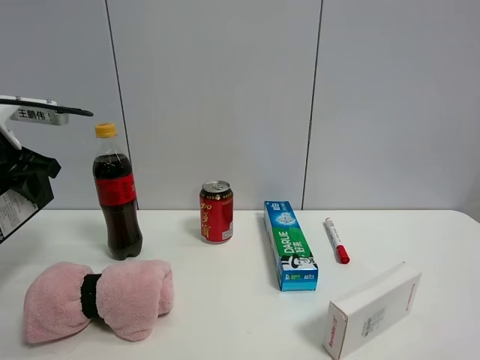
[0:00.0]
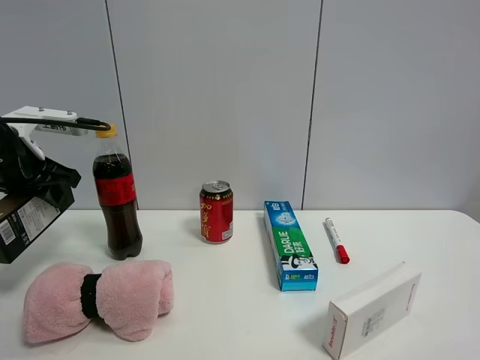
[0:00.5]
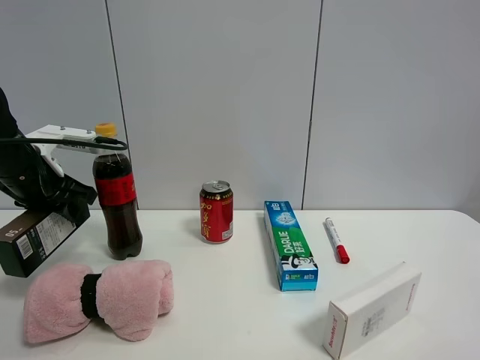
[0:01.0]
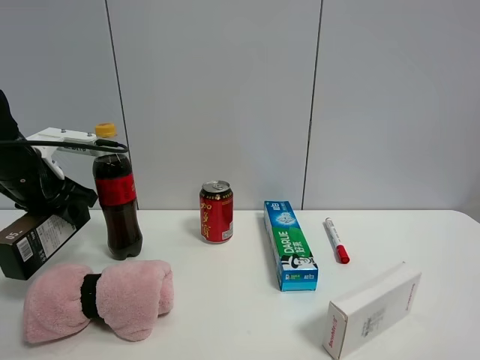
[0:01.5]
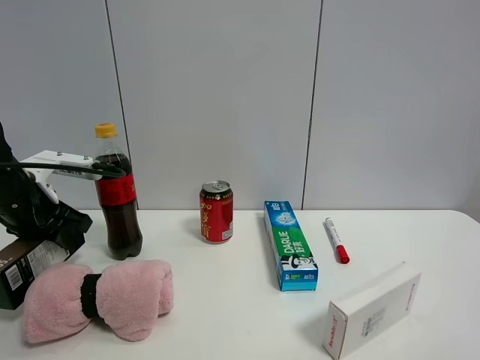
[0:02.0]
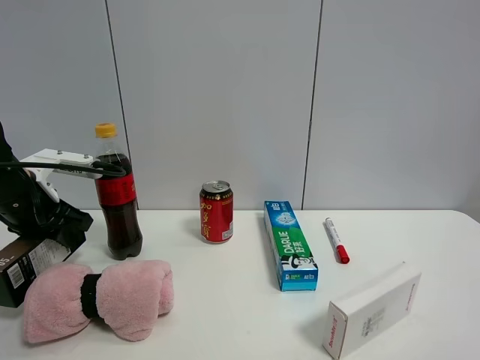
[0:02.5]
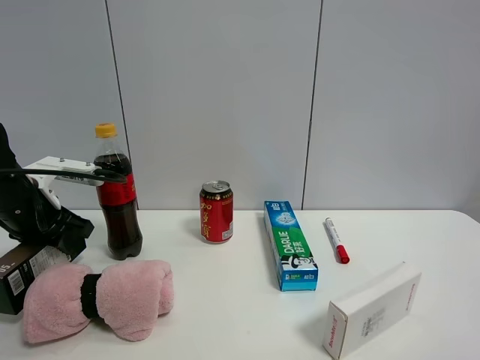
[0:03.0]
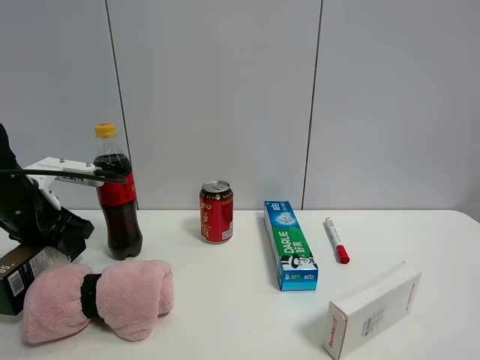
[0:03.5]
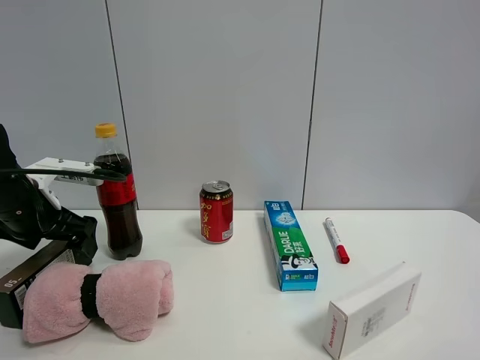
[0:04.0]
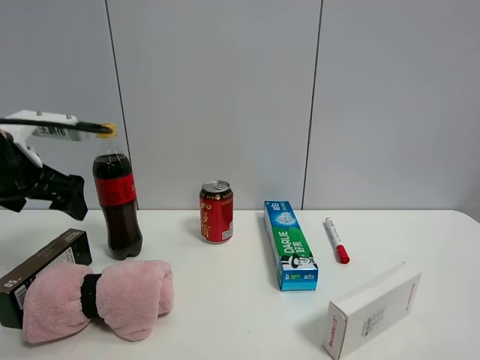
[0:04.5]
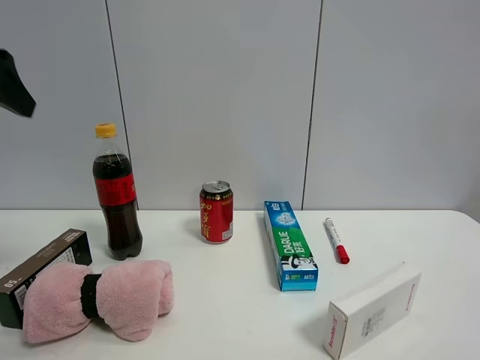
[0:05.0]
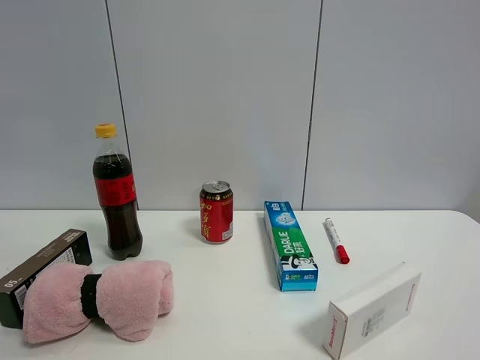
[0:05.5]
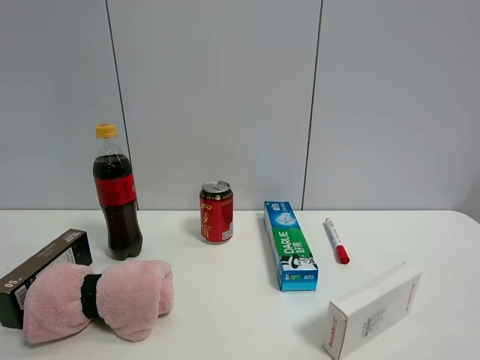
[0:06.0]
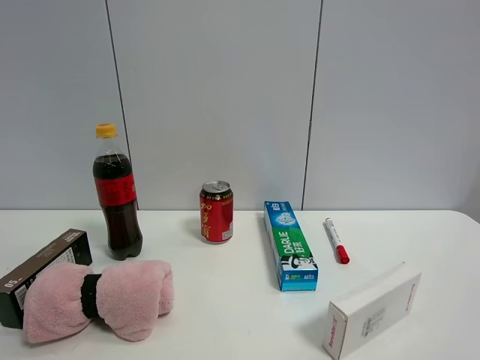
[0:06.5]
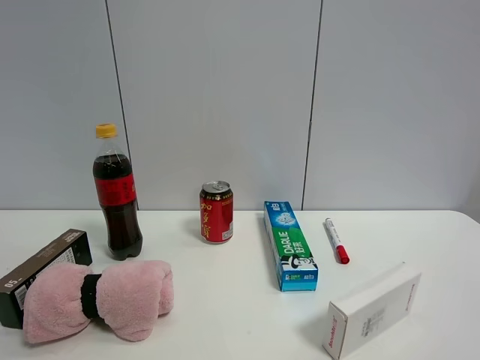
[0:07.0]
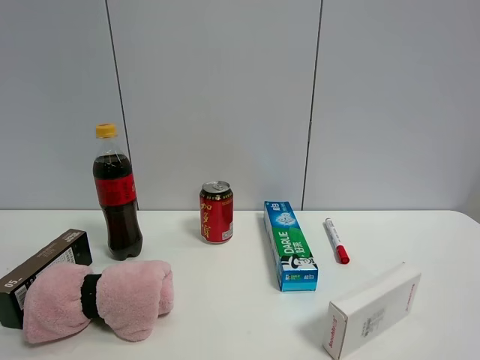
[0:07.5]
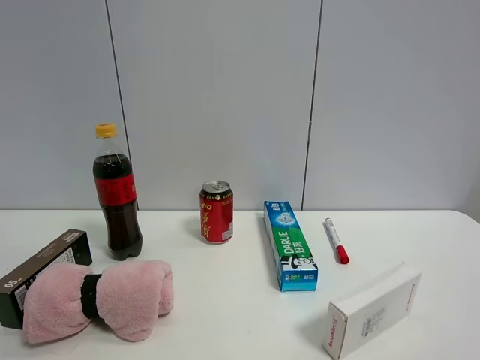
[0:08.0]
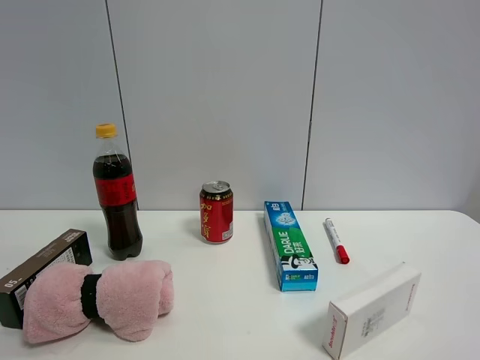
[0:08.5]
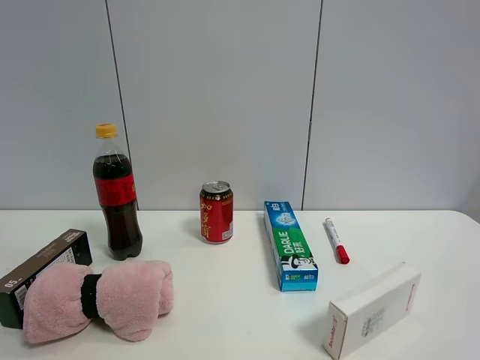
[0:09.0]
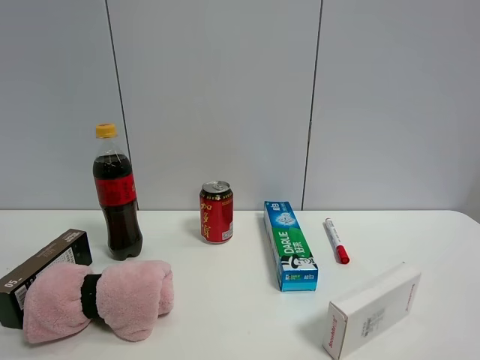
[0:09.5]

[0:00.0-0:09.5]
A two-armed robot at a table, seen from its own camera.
Task of the whole recording: the gripper move the object.
Step, 0:00.0 to 0:03.5: Place the brown box on the table with the left gripper.
0:00.0 to 0:02.0: The left gripper is displaced downward by roughly 5 cm.
0:02.0 to 0:04.0: The left gripper opens its fingers.
0:04.0 to 0:05.5: The left gripper shifts roughly 35 cm upward and backward.

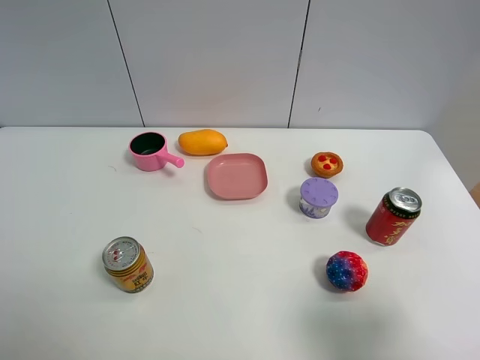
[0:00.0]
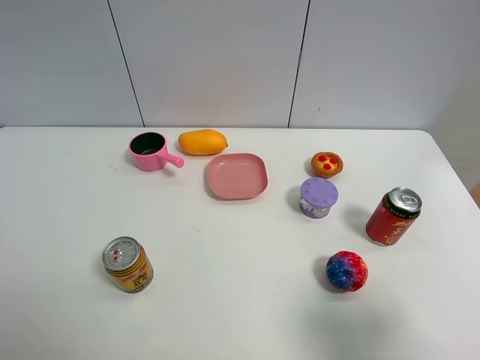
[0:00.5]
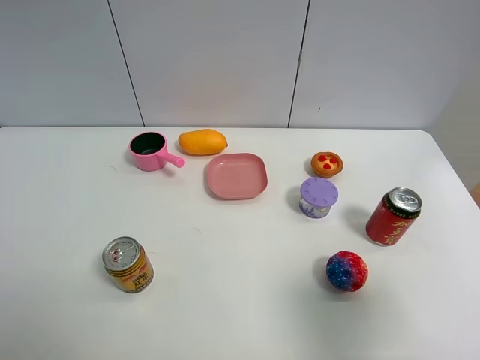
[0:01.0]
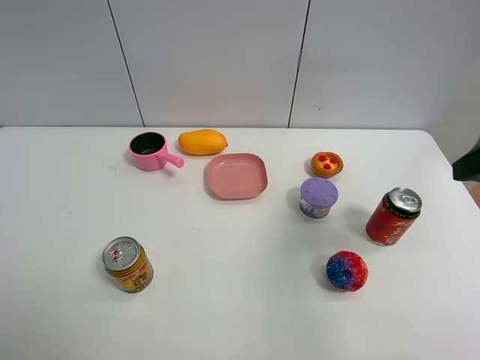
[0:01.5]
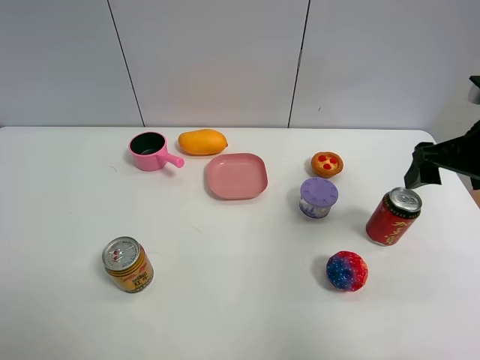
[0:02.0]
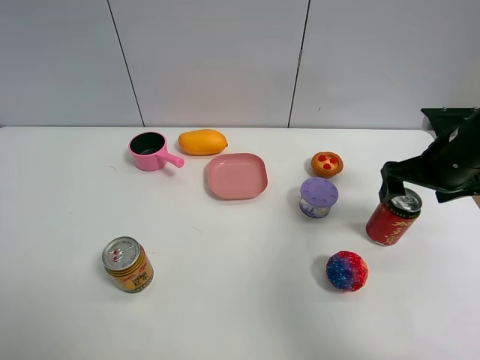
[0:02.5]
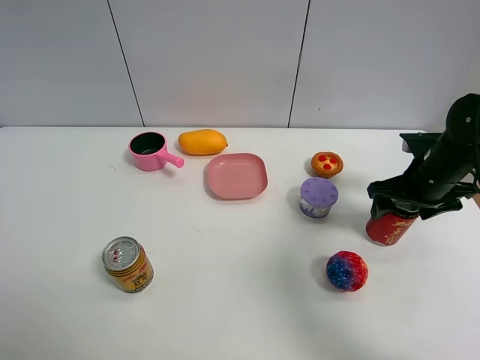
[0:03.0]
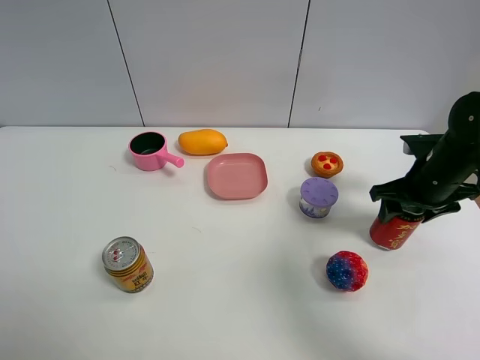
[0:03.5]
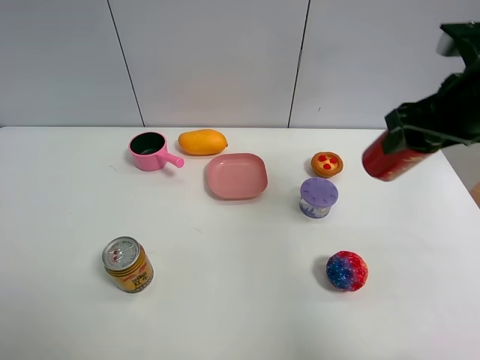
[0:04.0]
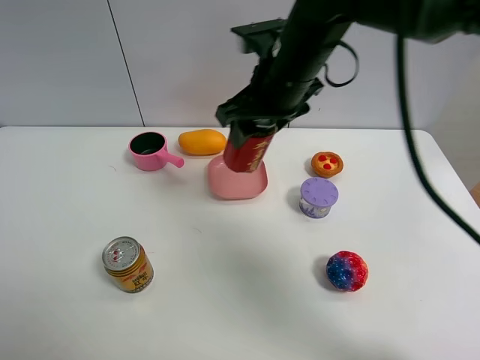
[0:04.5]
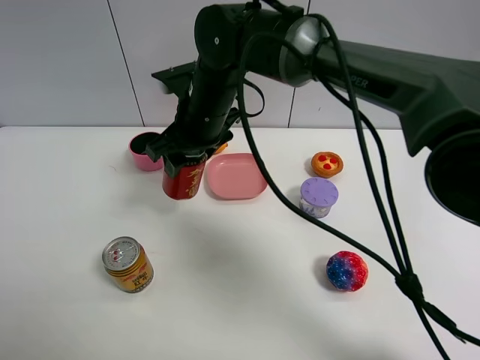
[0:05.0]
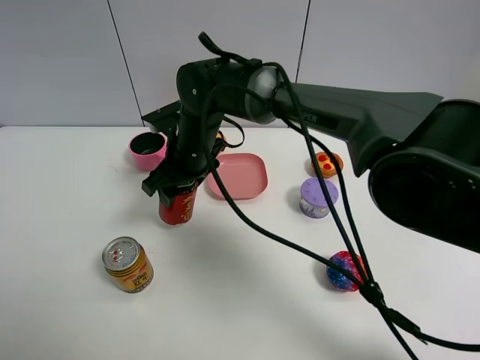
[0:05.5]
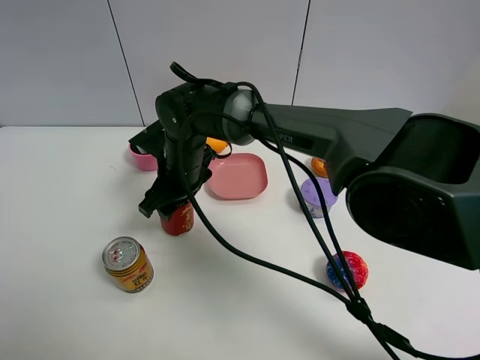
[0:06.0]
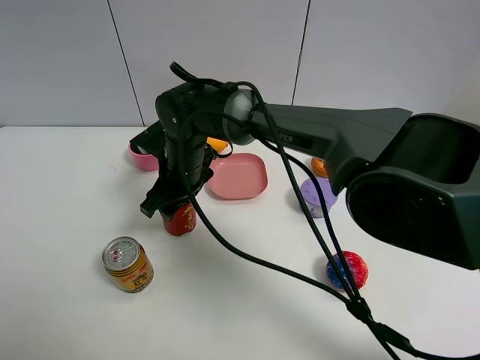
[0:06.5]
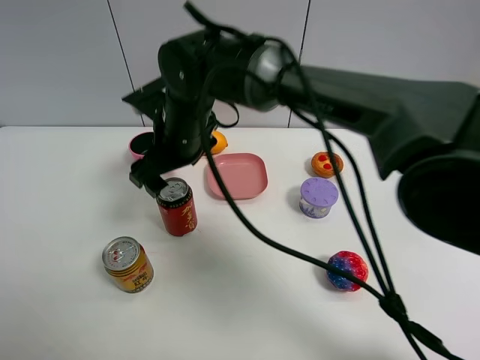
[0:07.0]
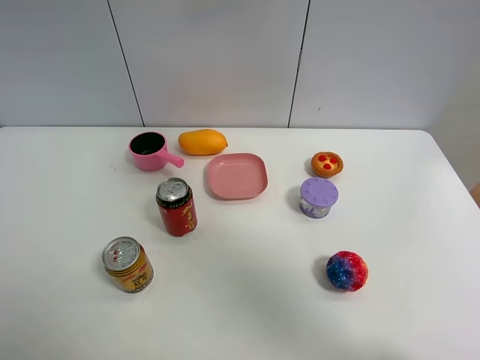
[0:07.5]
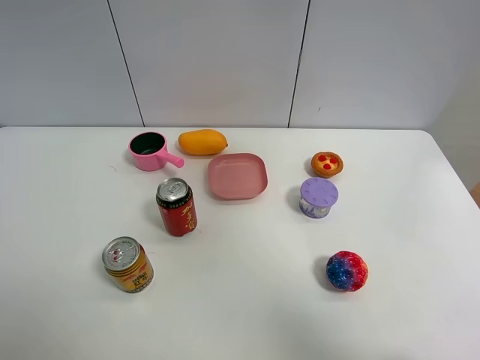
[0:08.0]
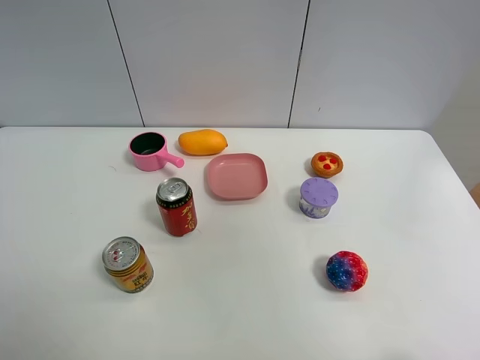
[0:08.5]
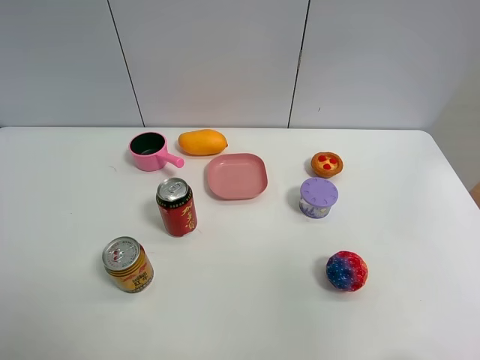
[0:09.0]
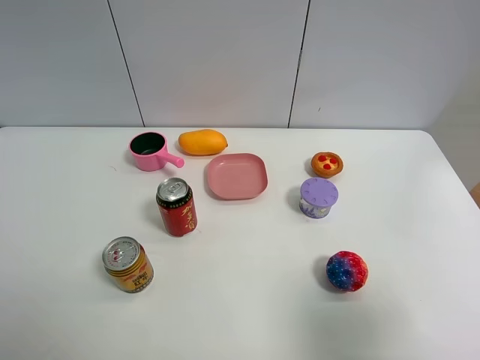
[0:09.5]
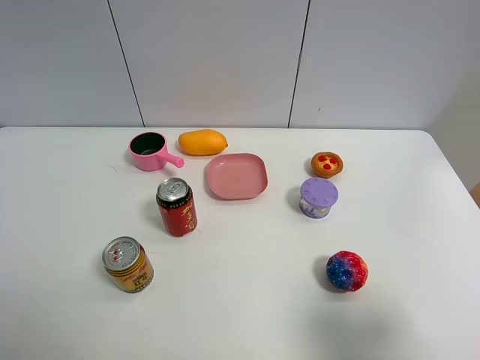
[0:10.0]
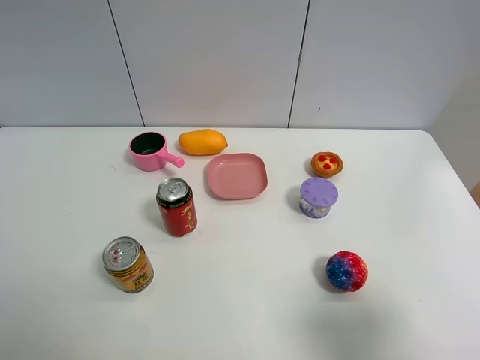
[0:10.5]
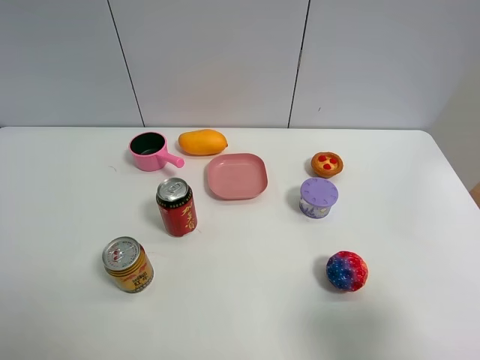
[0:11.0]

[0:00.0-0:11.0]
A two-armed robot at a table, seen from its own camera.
Task of the whole recording: the gripper move the object.
Step, 0:00.0 to 0:03.0: Grasp the Jia Duo Bao with the right gripper.
Step, 0:03.5 to 0:06.5: Place the Jia Duo Bao on the table with the right gripper.
0:00.0 to 0:02.0: The right gripper moves forward, approximately 25 cm.
0:02.0 to 0:03.5: The right gripper moves downward and forward, about 10 cm, and closes its fingers.
0:03.5 to 0:05.5: The right gripper is displaced to the left by some 35 cm.
0:05.5 to 0:07.5: The right gripper goes roughly 30 cm upward and to the right, and opens up.
0:07.5 to 0:09.0: The right gripper heads backward and to the right, covering approximately 40 cm.
0:09.0 to 0:11.0: The right gripper goes some 25 cm downward.

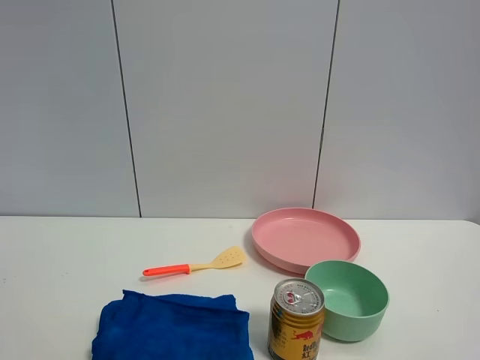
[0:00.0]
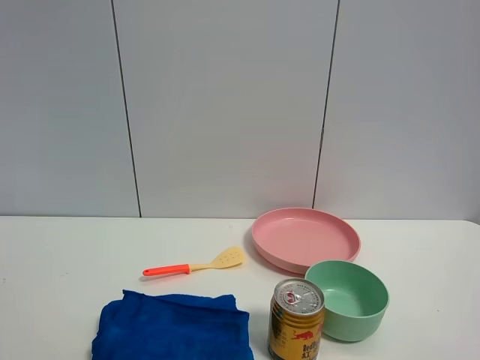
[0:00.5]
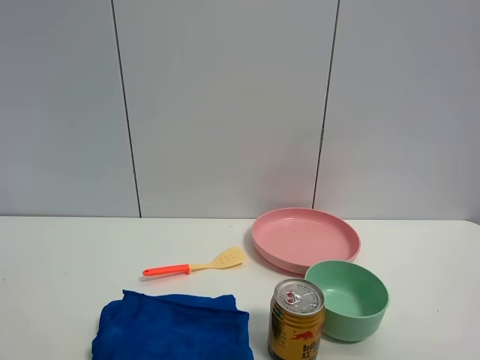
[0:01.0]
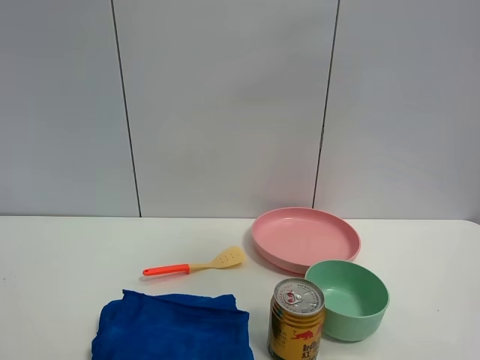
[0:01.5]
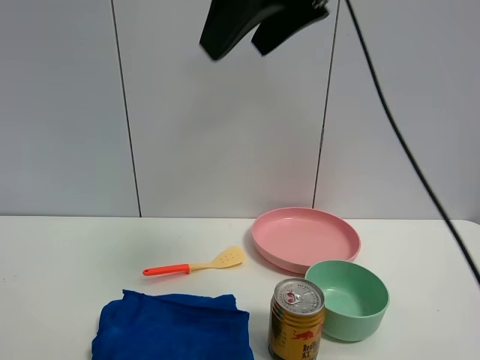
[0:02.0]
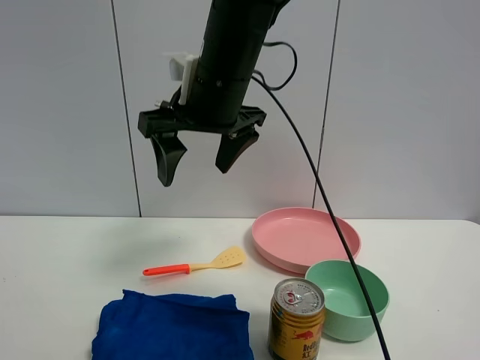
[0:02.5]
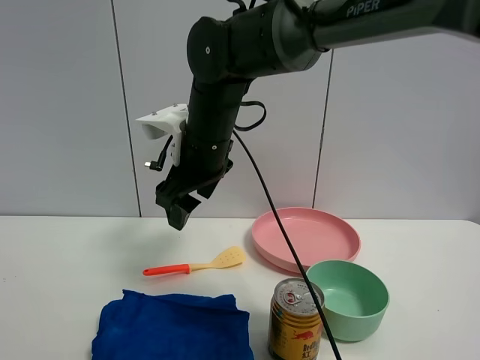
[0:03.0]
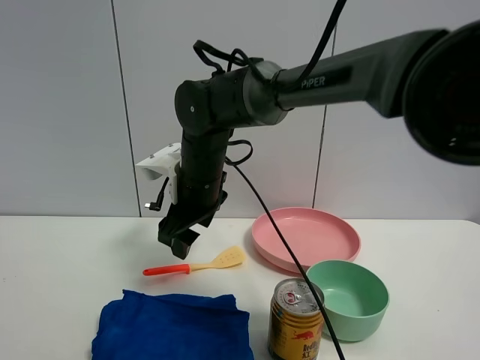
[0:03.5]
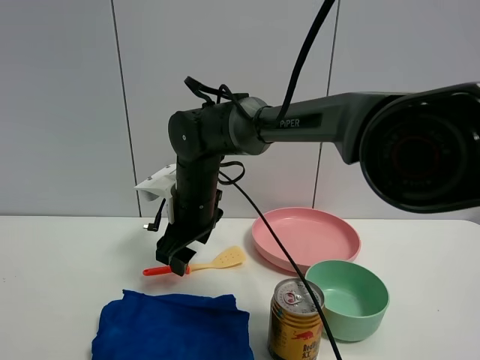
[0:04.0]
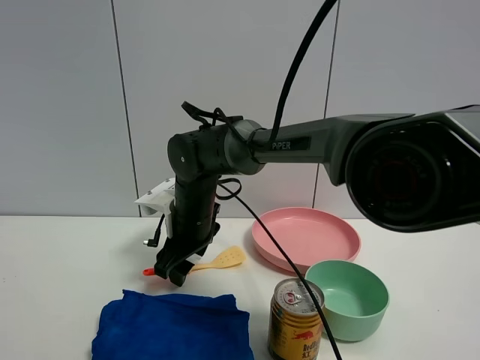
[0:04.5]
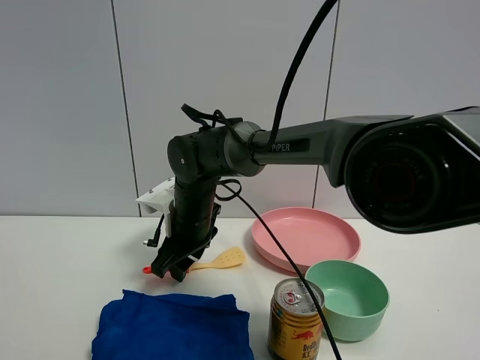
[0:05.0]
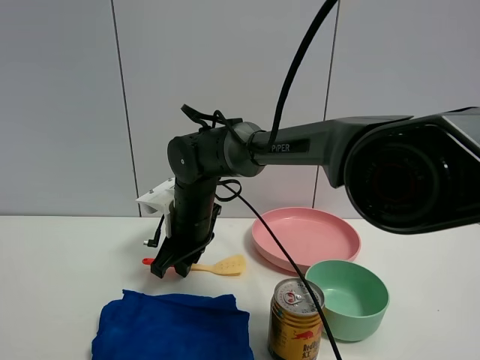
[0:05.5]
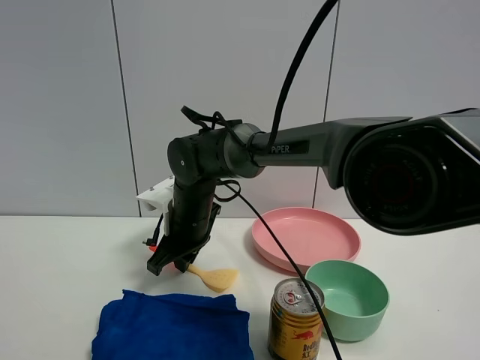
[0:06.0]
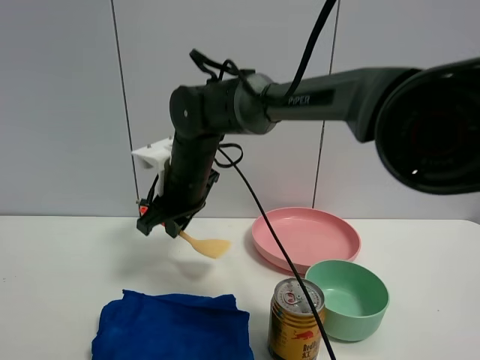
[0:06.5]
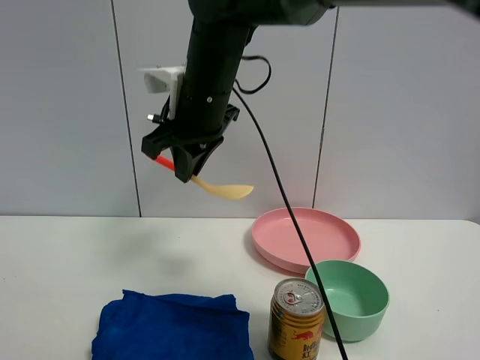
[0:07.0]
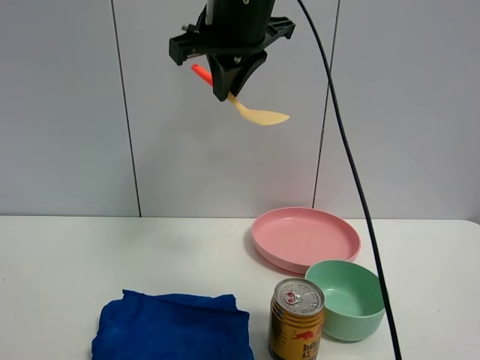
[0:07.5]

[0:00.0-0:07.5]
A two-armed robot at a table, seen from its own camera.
Task of the whole recording: the gripper move the object.
Step, 0:00.0 to 0:05.5: Grasp the cooking shovel with the right gripper.
0:00.0 to 0:02.0: The right gripper moves forward, to the left and upward, some 40 cm.
0:02.0 to 0:04.0: The right gripper shifts roughly 35 cm downward, forward and to the left.
0:04.0 to 0:05.5: The right gripper closes.
0:05.5 to 0:07.5: The right gripper travels upward by about 25 cm.
